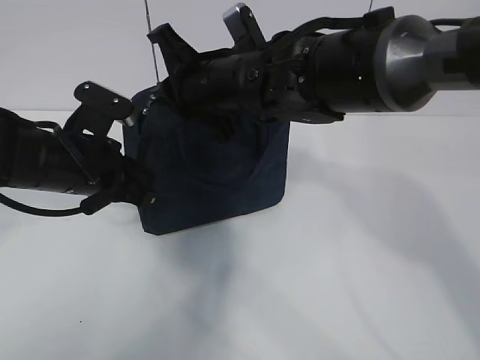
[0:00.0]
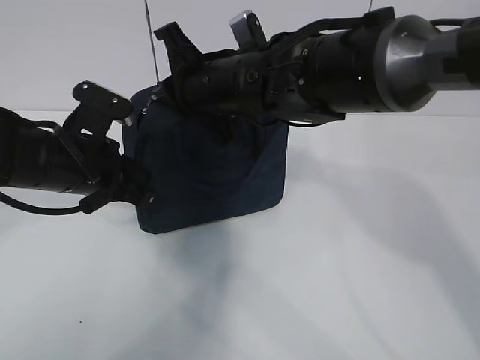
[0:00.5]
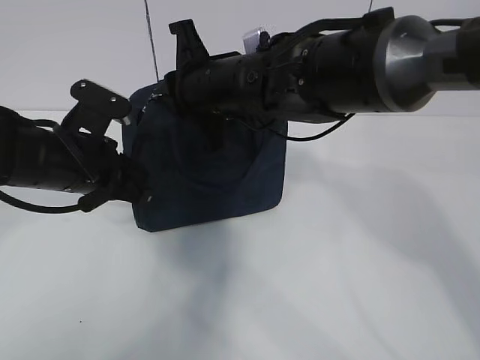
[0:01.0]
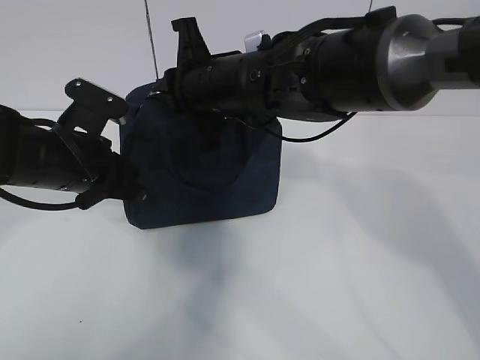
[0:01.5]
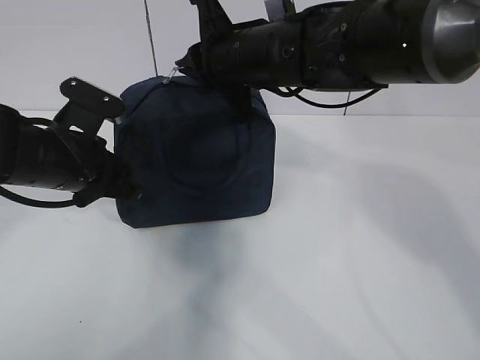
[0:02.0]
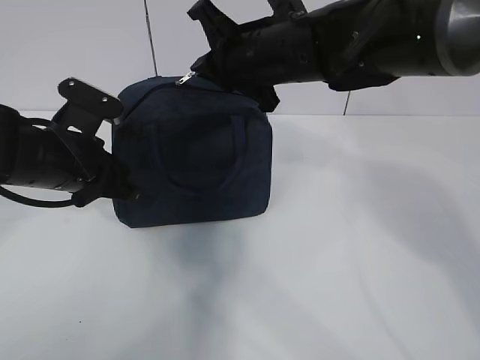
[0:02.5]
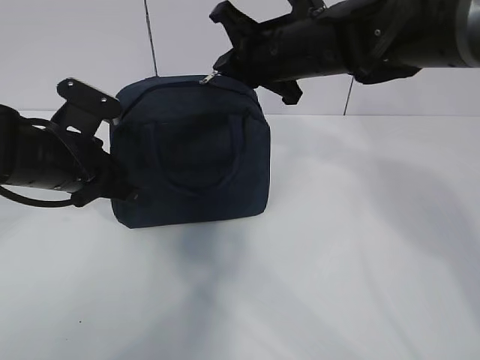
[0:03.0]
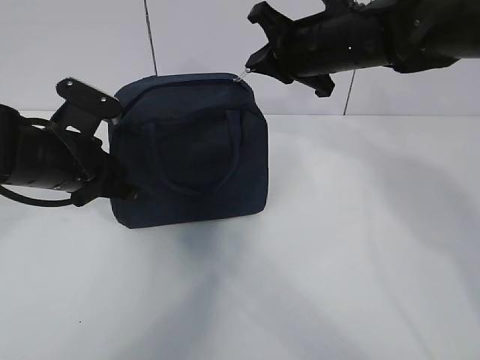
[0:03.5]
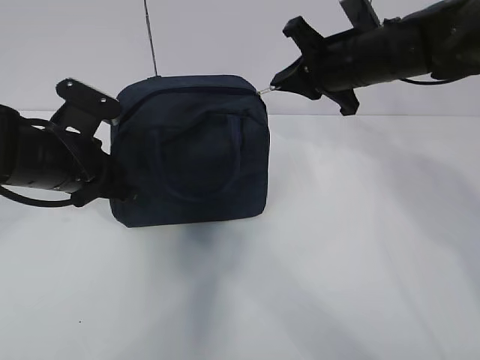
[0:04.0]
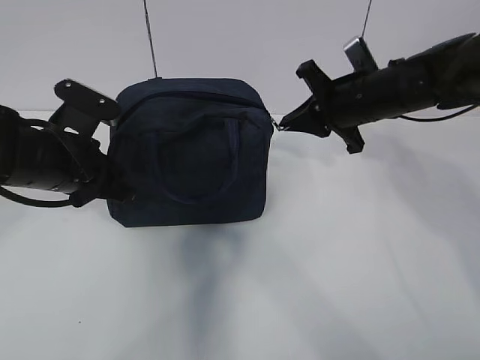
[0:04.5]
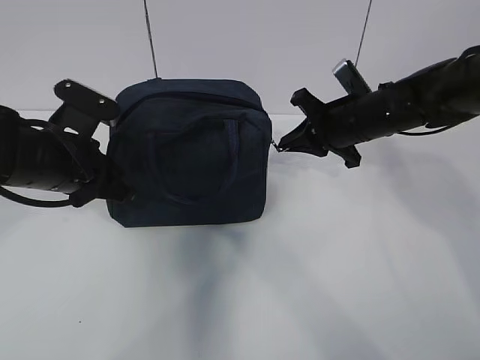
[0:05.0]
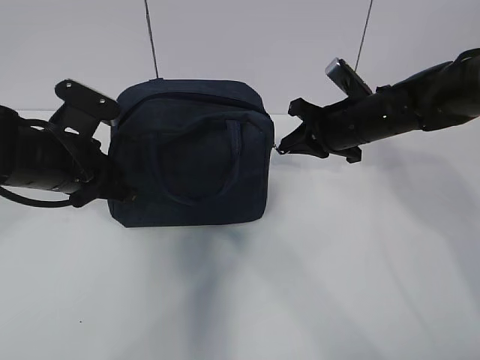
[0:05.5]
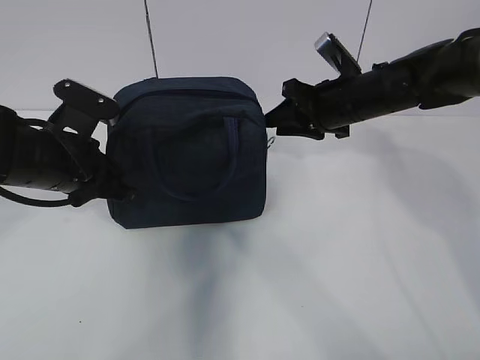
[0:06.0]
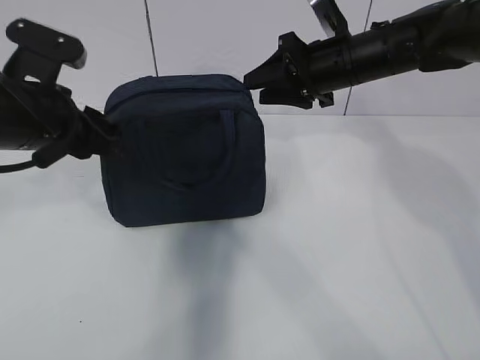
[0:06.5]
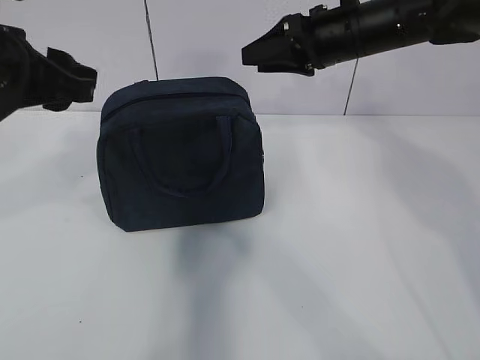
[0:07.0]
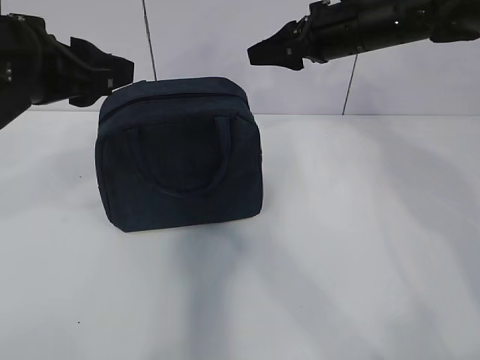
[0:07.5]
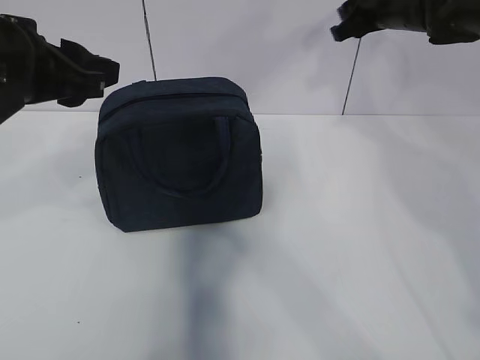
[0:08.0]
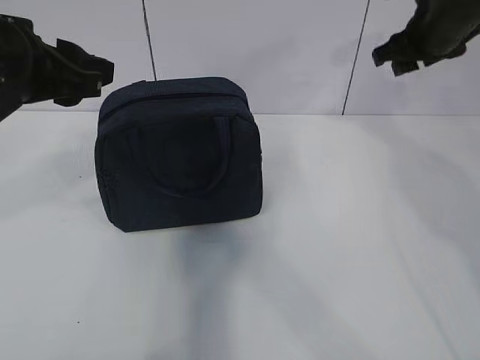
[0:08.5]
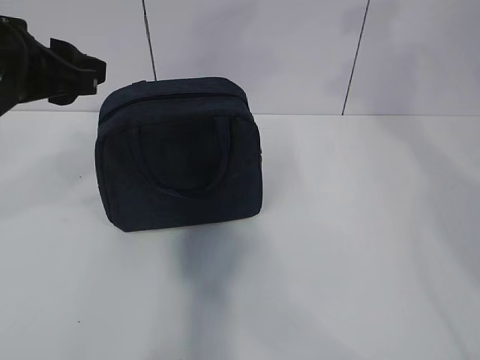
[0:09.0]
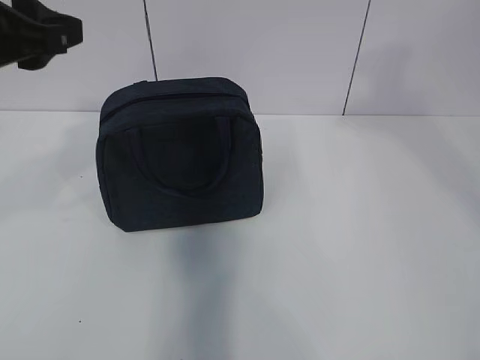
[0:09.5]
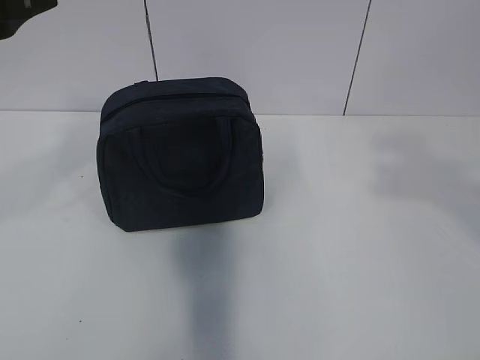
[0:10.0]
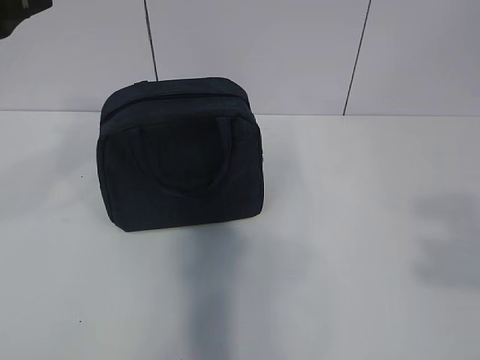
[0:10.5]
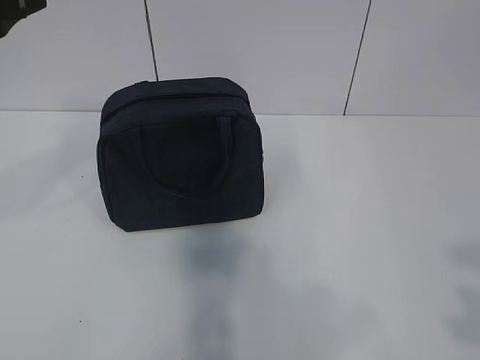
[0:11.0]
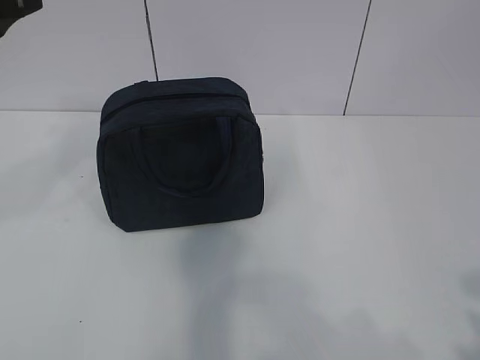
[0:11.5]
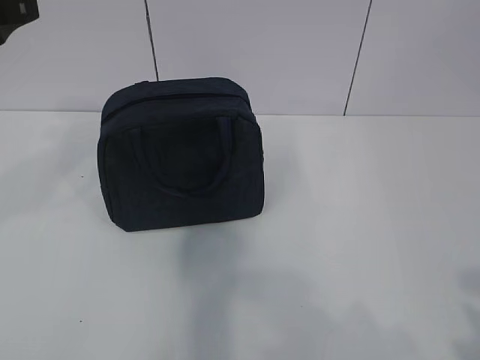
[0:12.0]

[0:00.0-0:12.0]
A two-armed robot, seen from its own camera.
0:02.0 to 0:04.0: The right gripper shifts approximately 10 cm to the right.
0:04.0 to 0:06.0: The right gripper goes approximately 5 cm downward, and opens up.
0:06.0 to 0:08.0: The right gripper goes about 10 cm upward, forward and to the right. Meanwhile the left gripper travels upward by some 15 cm, and opens its fingers.
0:08.0 to 0:10.0: The right gripper goes roughly 40 cm backward. The left gripper travels upward by approximately 5 cm.
0:10.0 to 0:12.0: The right gripper shifts some 20 cm downward and backward.

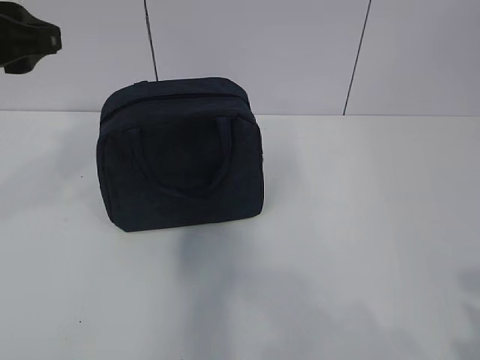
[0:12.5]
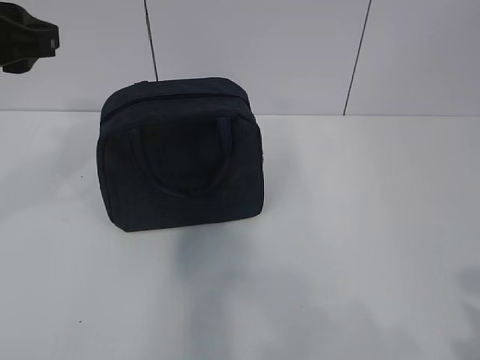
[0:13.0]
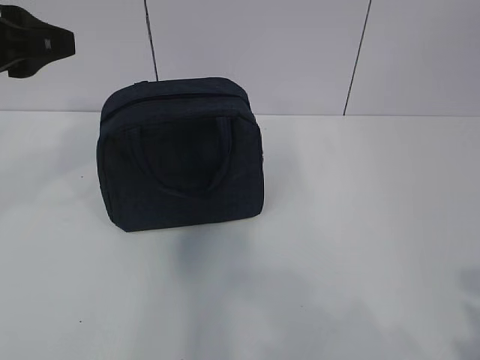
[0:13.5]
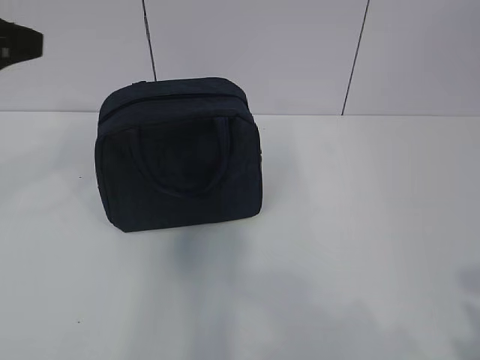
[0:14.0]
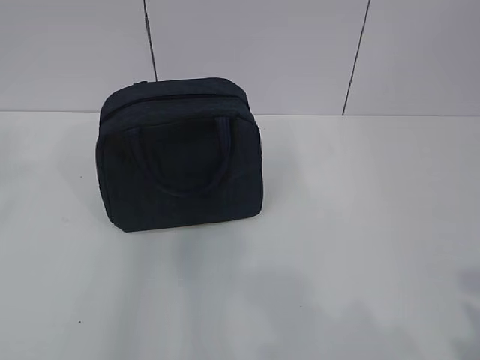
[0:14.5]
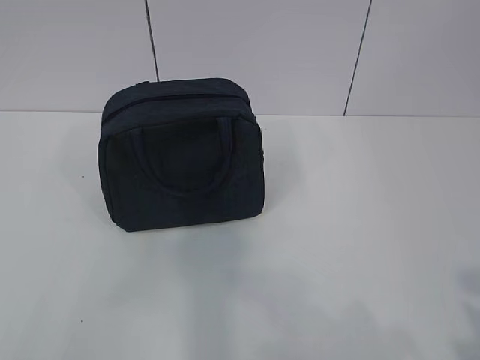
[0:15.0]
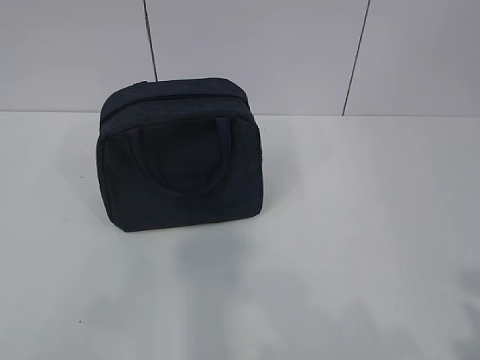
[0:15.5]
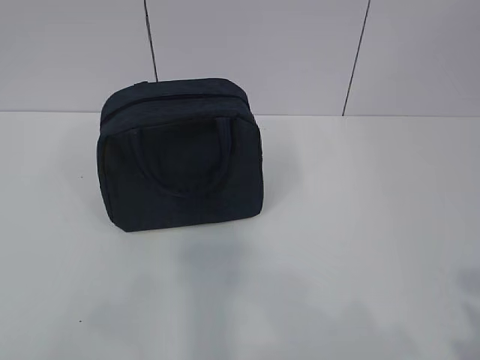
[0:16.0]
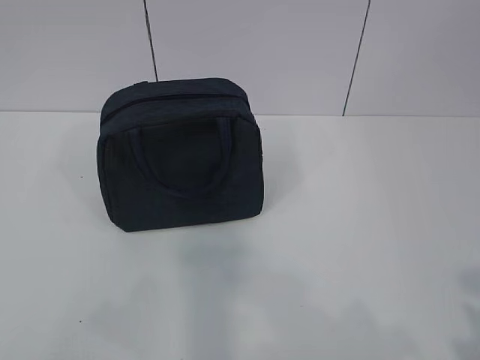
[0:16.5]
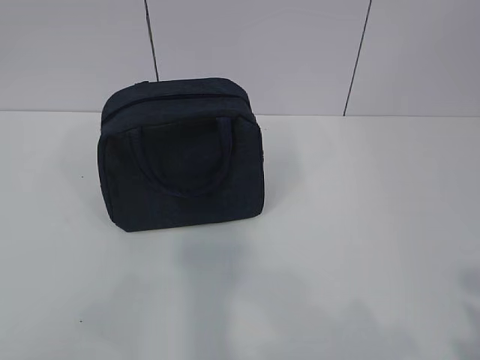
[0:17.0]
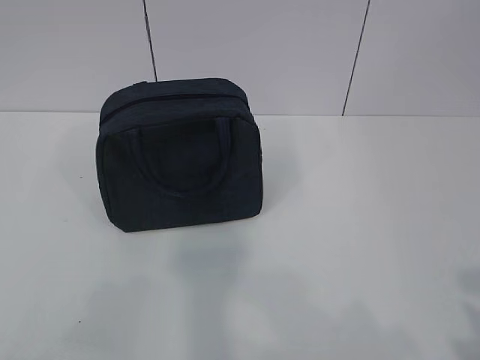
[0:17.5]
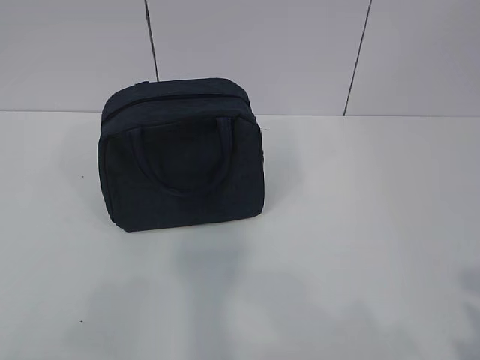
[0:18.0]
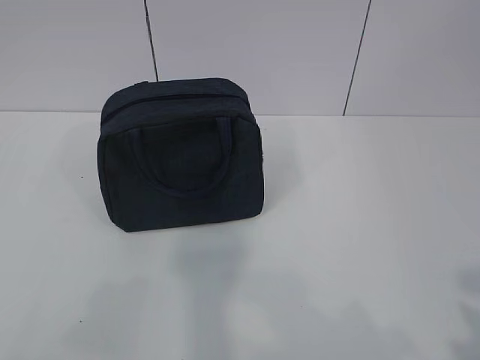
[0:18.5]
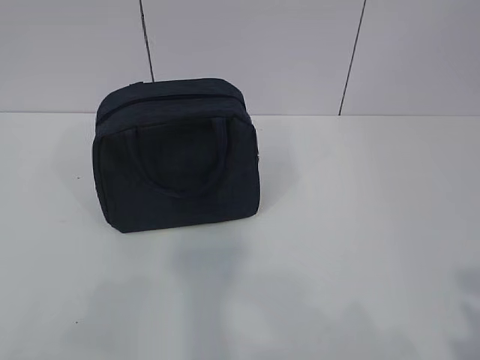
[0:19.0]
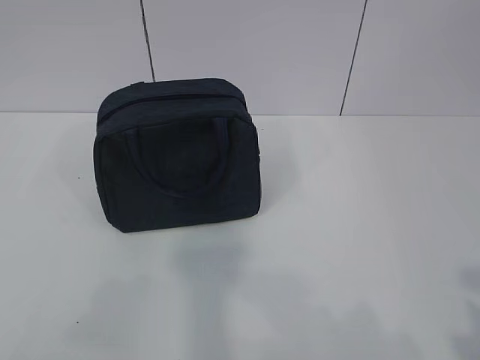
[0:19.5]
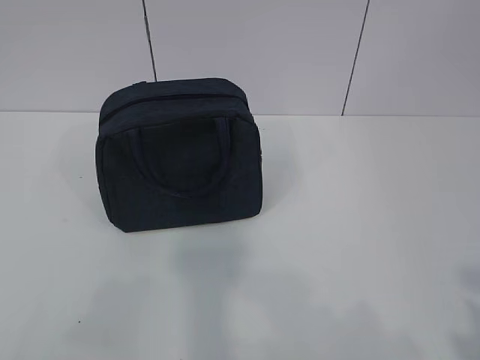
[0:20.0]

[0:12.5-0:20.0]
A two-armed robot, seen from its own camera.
0:12.5 to 0:14.5: The left gripper travels backward, to the left and upward by approximately 20 cm.
0:18.0 to 0:20.0: The two grippers keep their place.

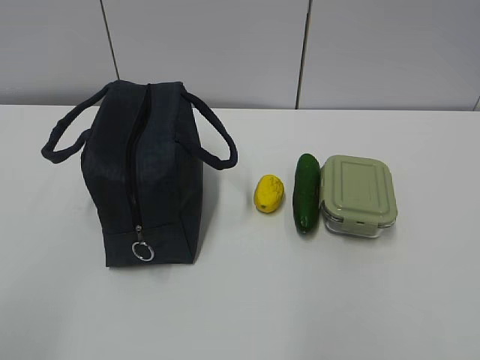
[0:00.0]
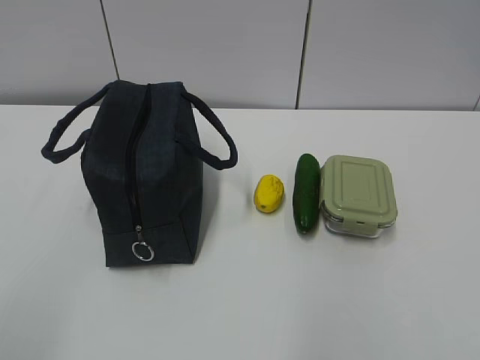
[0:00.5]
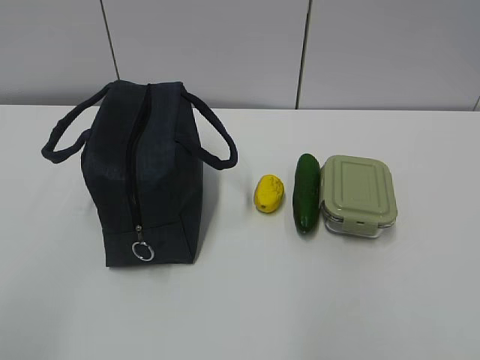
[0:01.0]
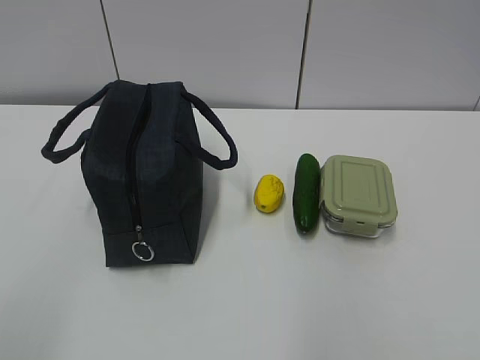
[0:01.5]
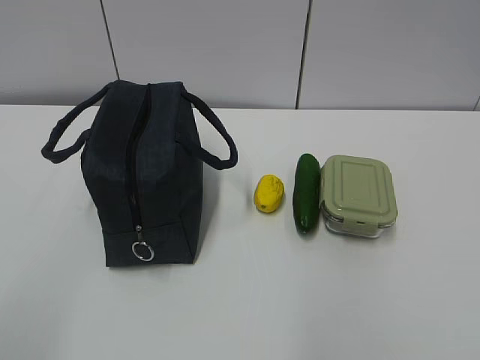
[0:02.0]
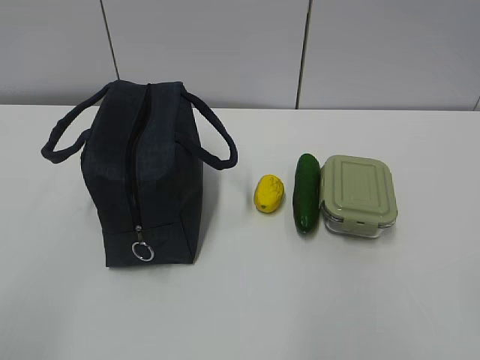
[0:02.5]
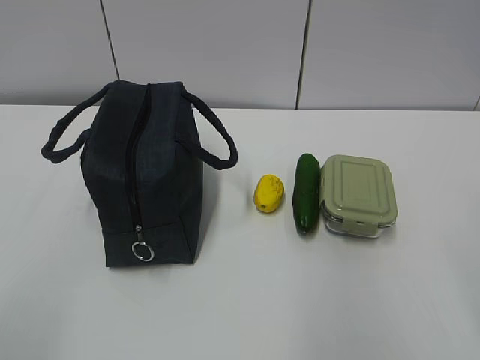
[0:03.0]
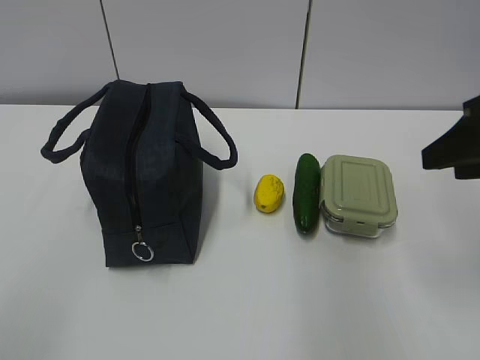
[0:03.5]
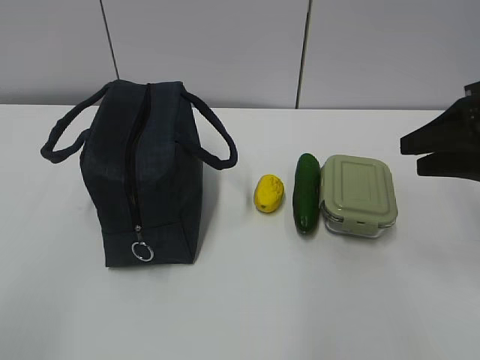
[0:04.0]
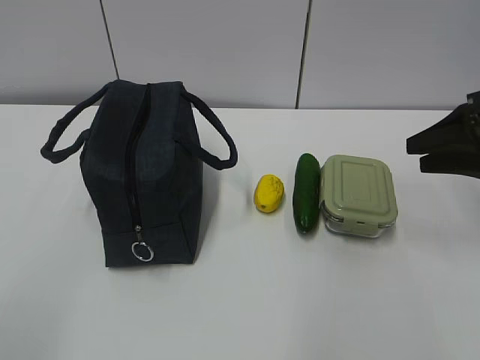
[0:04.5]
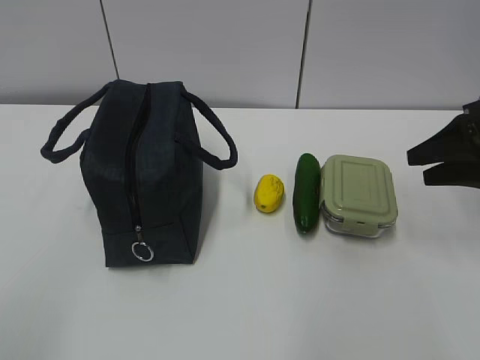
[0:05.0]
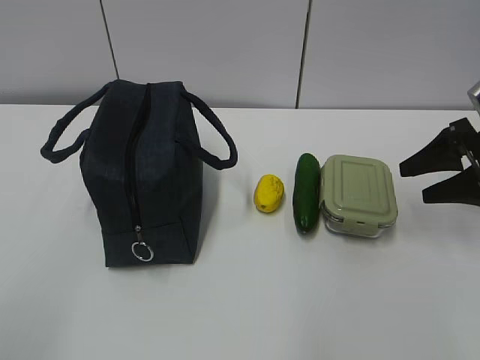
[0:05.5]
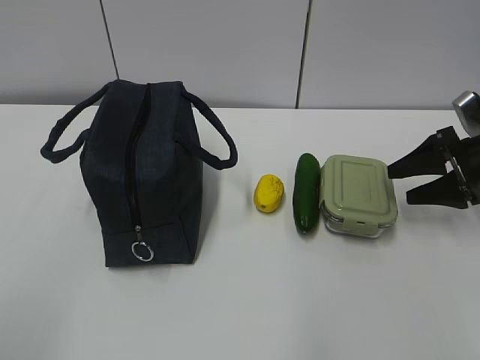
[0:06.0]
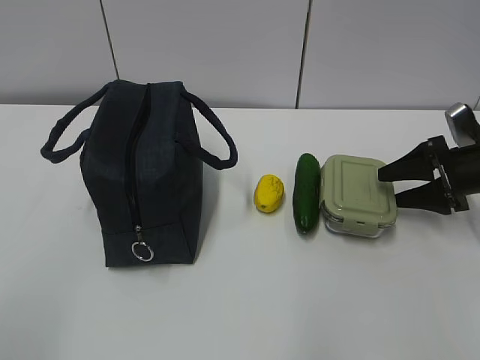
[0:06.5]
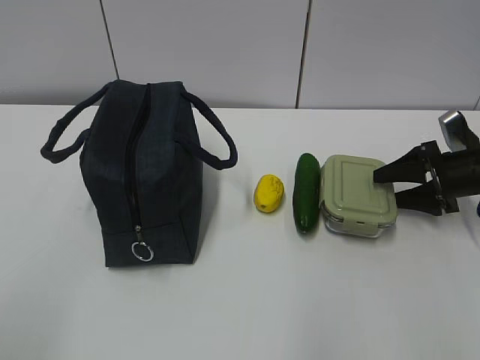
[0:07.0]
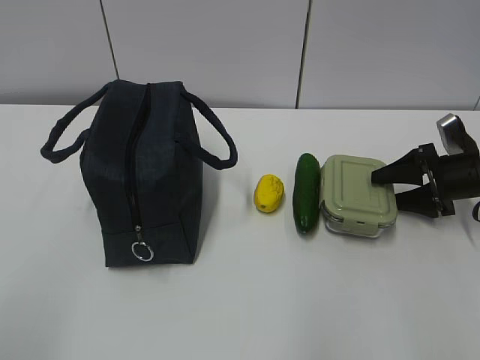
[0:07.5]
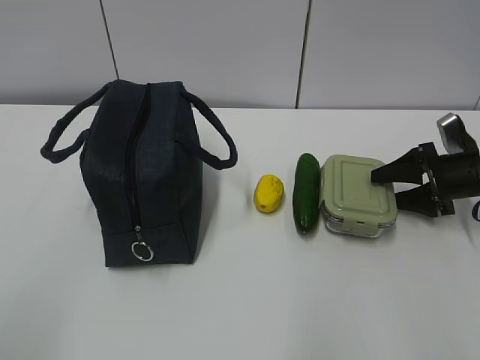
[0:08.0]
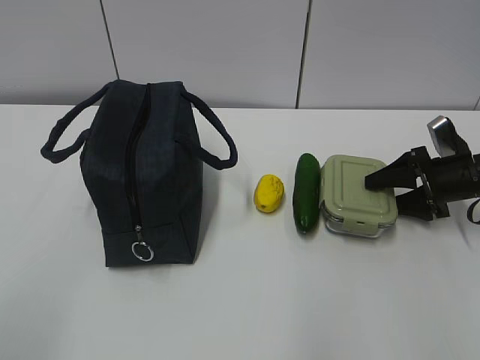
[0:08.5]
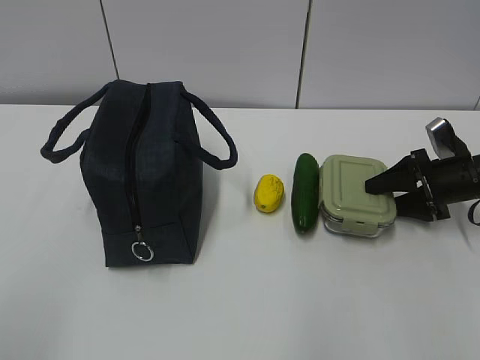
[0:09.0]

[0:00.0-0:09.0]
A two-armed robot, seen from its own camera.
0:02.0 to 0:04.5: The right gripper moves forward, roughly 30 cm.
0:04.5 to 0:07.0: The right gripper goes about 15 cm downward and forward.
0:07.0 to 0:09.0: The grippers move only a little.
